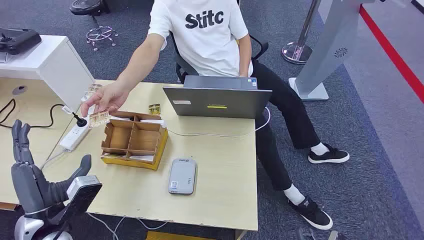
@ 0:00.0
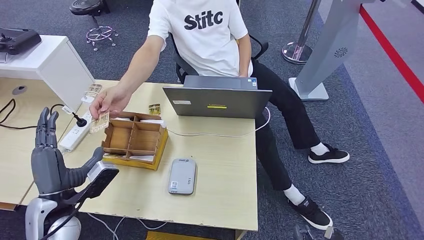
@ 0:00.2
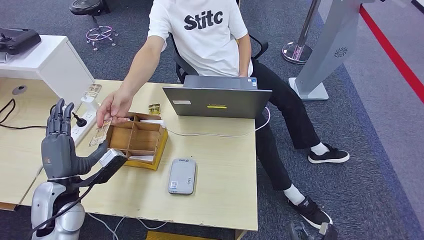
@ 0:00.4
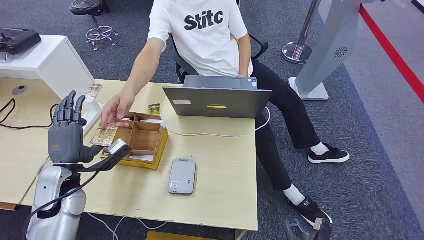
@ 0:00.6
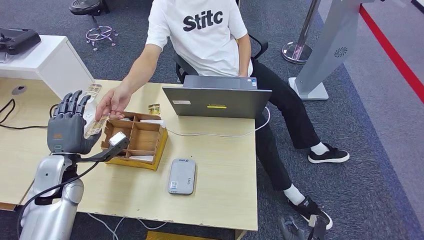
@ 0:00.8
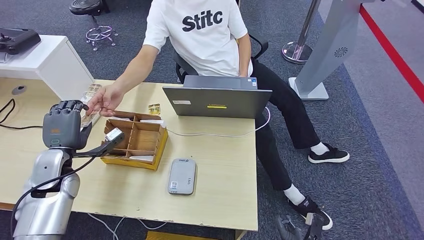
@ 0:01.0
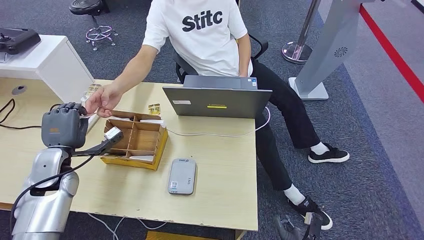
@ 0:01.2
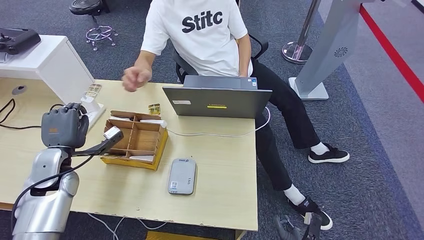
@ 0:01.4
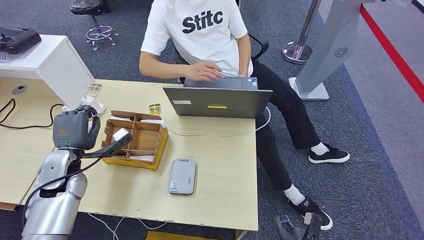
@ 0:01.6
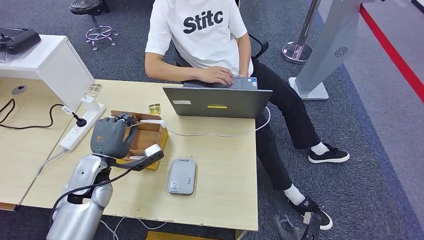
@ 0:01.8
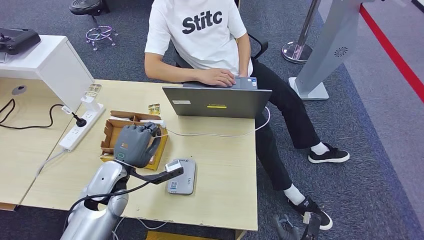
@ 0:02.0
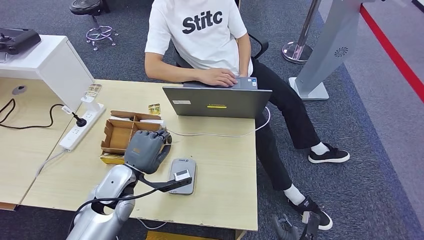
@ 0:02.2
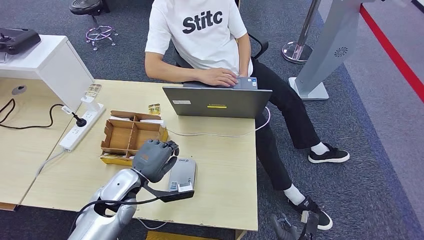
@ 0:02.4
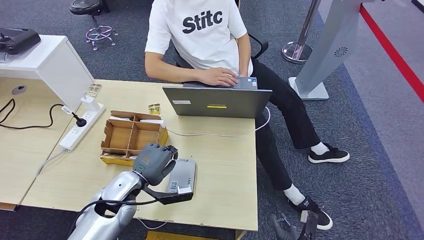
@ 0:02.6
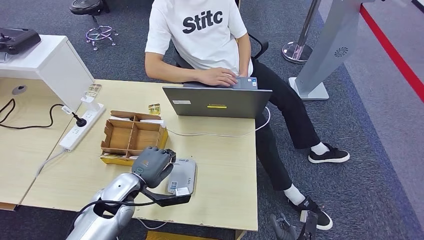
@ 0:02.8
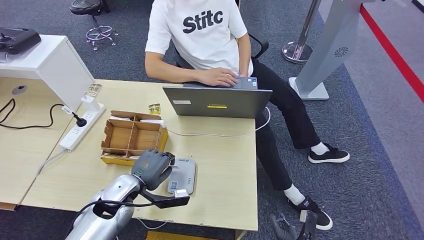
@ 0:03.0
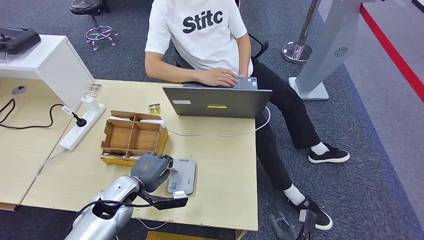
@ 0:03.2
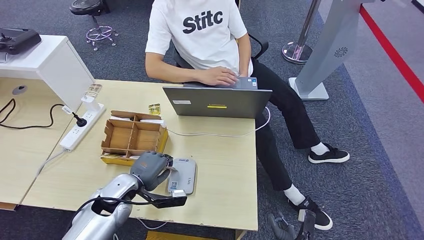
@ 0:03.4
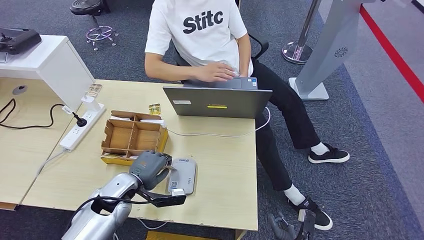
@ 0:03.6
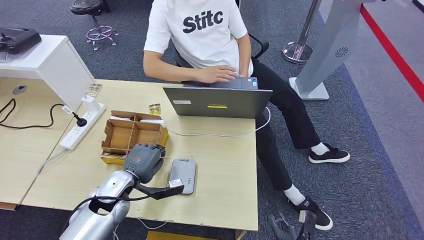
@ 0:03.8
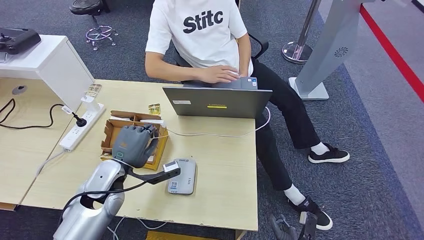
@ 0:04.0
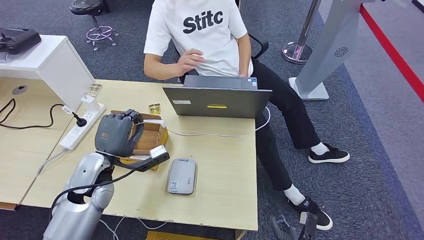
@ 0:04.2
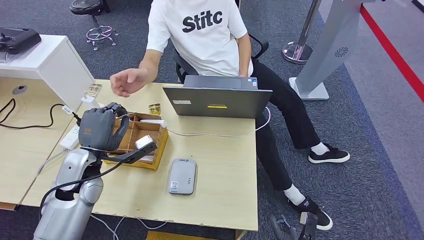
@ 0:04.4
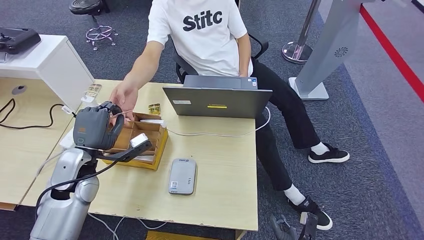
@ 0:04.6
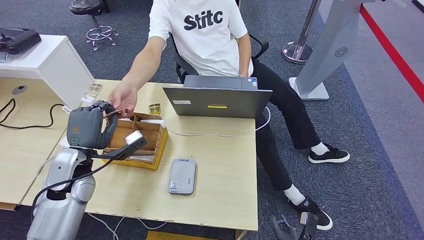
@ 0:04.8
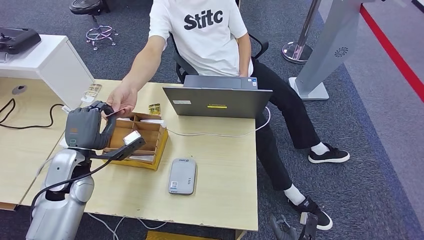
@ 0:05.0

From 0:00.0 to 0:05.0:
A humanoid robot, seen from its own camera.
Step, from 0:00.0 to 0:01.8: Take the ID card from the person's hand.
Step, from 0:02.0 to 0:04.2: Place the ID card on the card reader.
Step, from 0:04.4 to 0:05.0: Hand the ID card to the person.
From 0:01.6 to 0:03.4: The left hand goes roughly 15 cm to the right and downward.
From 0:03.4 to 0:05.0: The left hand shifts approximately 10 cm upward and to the left.
